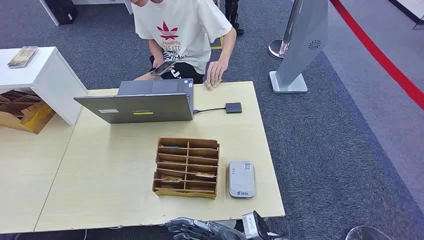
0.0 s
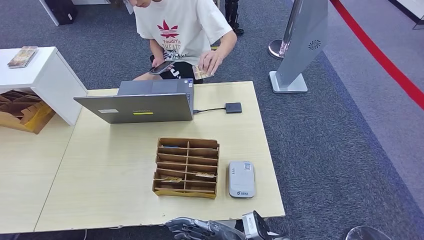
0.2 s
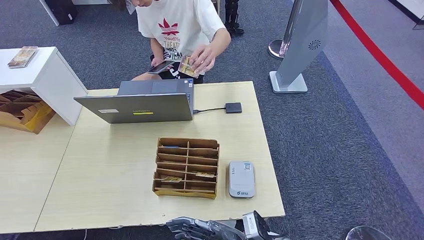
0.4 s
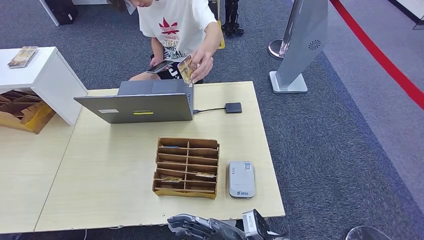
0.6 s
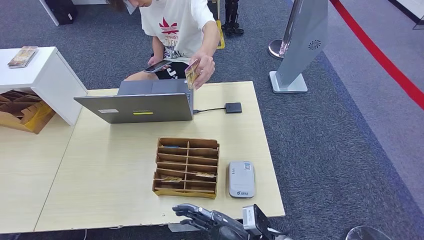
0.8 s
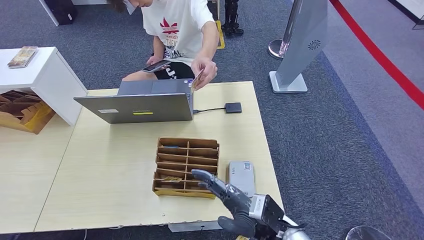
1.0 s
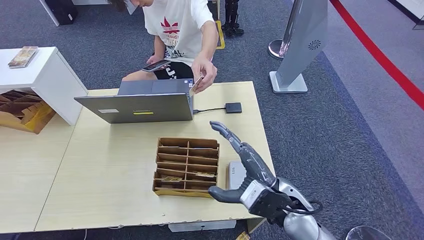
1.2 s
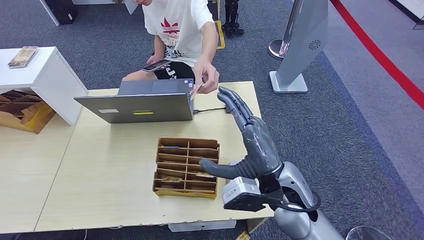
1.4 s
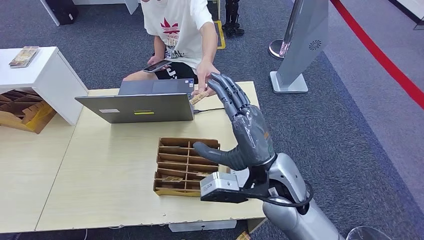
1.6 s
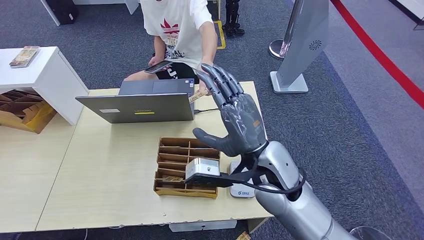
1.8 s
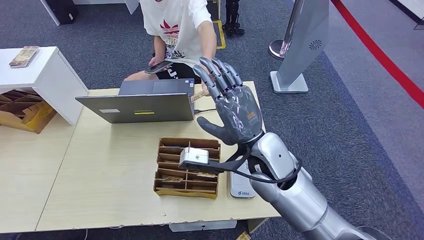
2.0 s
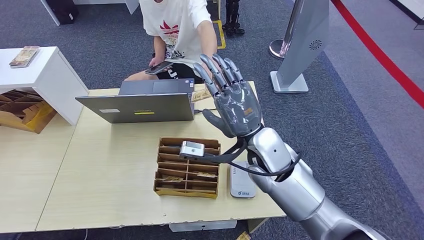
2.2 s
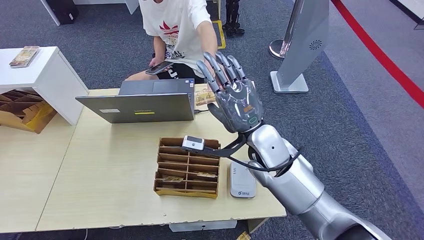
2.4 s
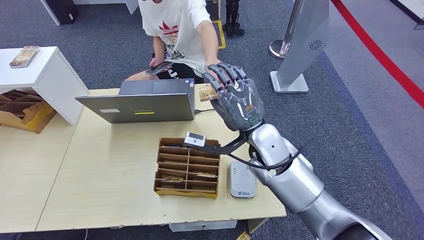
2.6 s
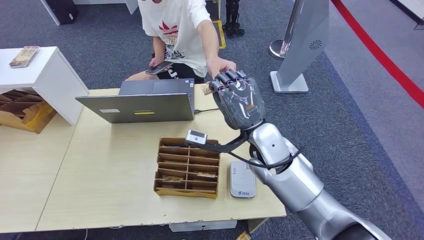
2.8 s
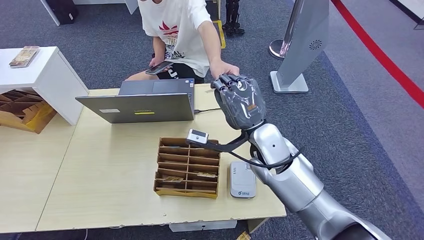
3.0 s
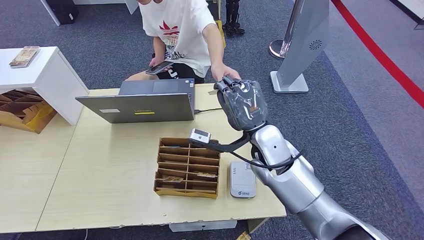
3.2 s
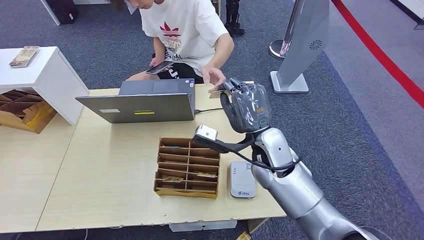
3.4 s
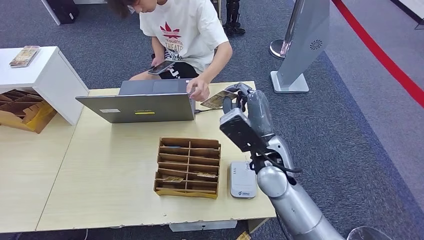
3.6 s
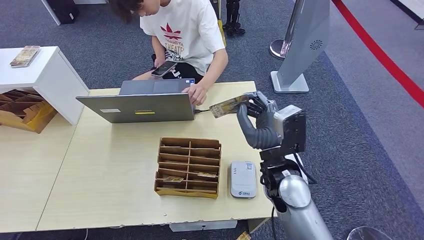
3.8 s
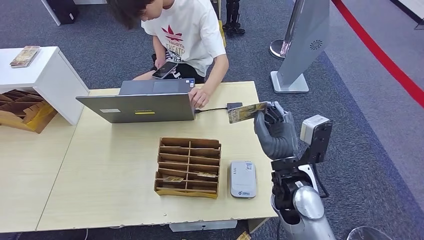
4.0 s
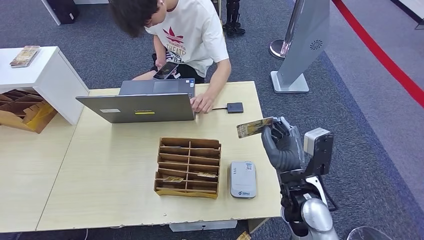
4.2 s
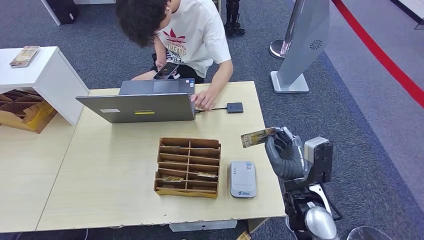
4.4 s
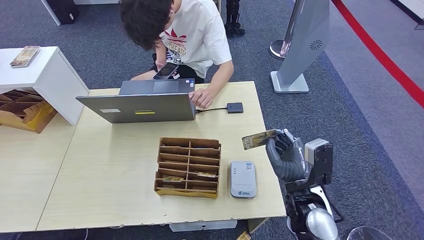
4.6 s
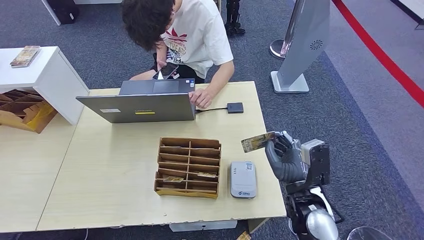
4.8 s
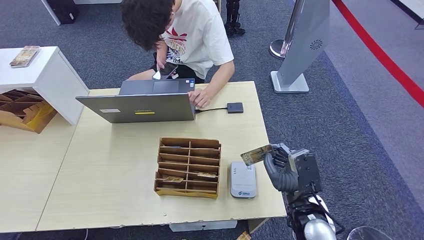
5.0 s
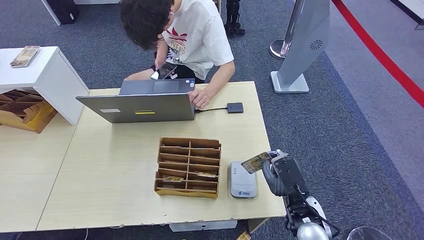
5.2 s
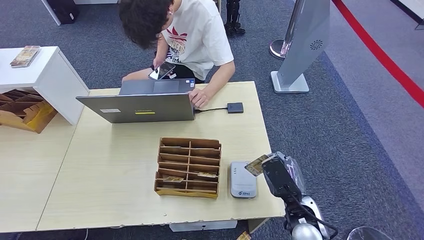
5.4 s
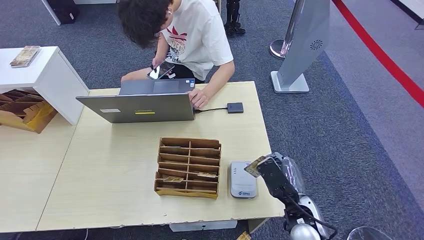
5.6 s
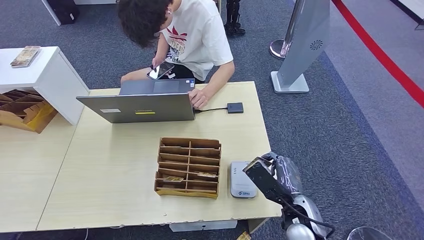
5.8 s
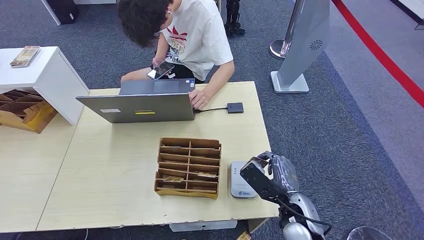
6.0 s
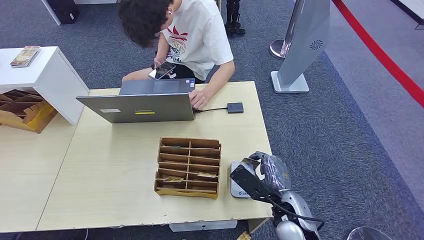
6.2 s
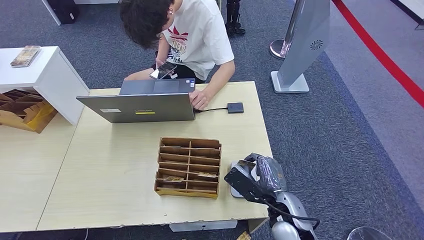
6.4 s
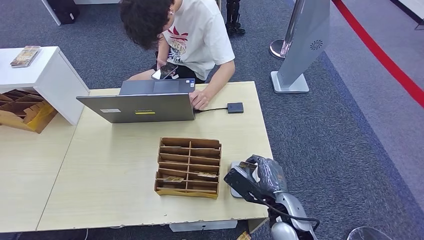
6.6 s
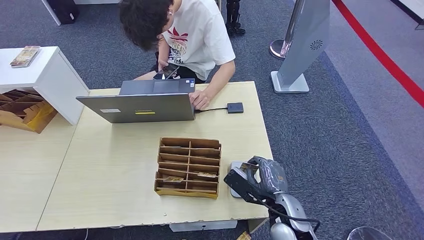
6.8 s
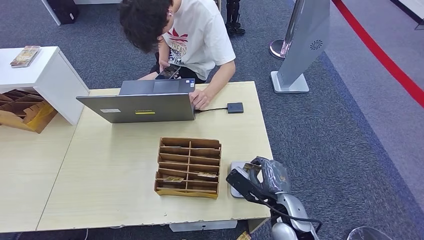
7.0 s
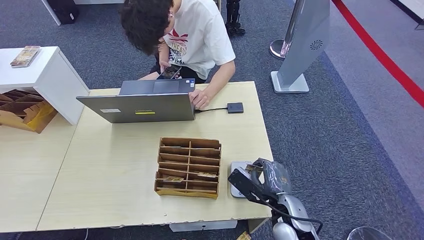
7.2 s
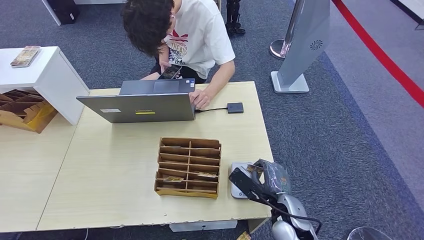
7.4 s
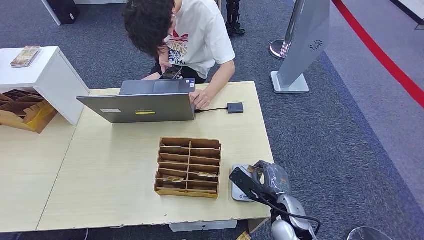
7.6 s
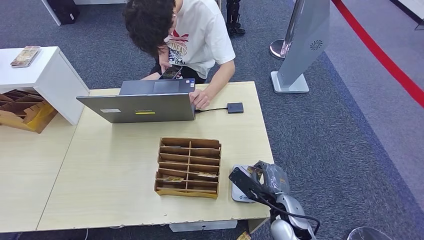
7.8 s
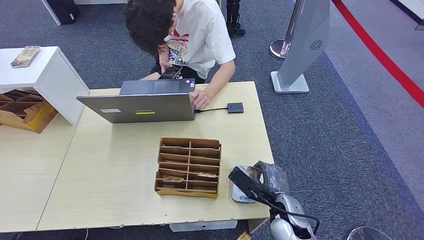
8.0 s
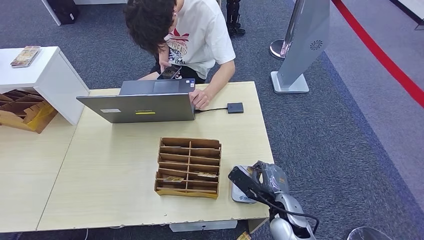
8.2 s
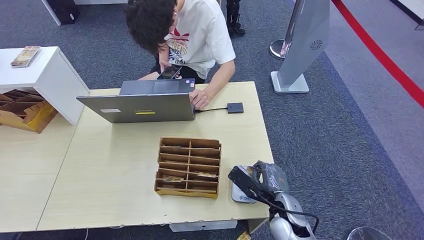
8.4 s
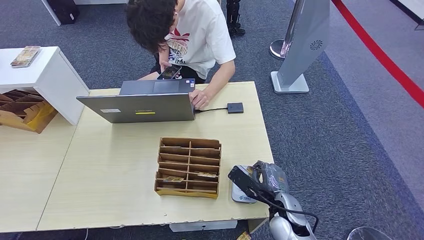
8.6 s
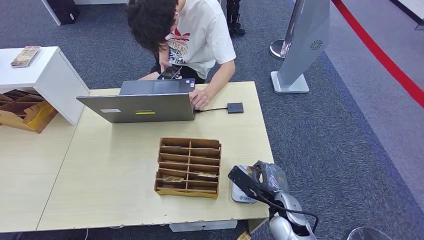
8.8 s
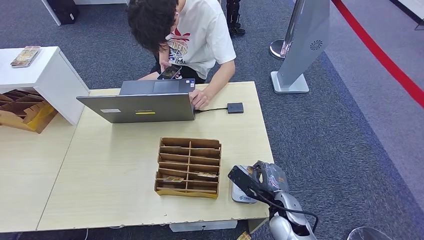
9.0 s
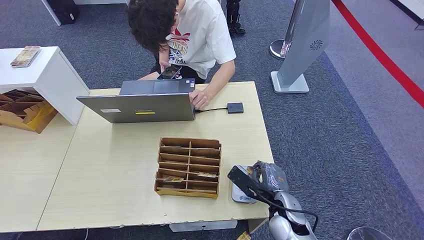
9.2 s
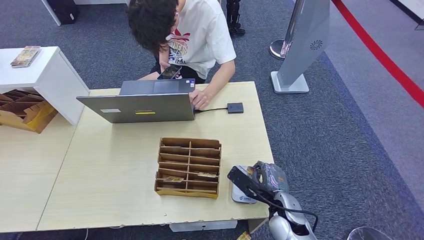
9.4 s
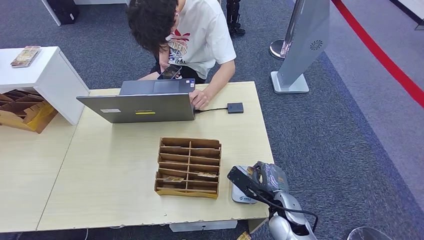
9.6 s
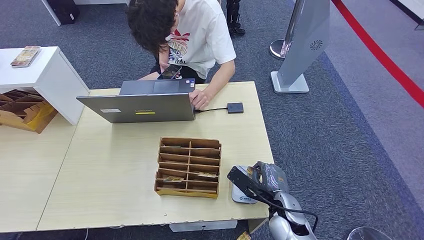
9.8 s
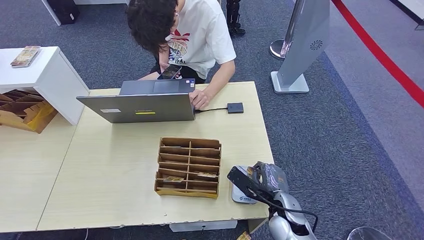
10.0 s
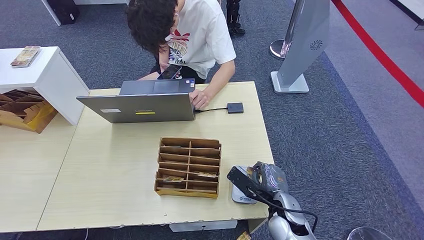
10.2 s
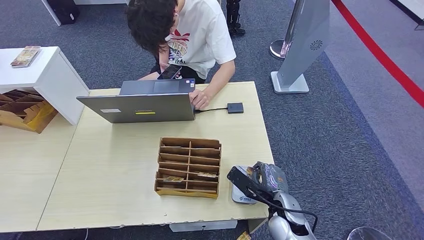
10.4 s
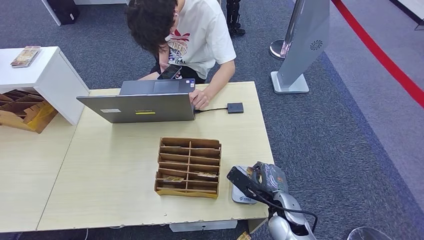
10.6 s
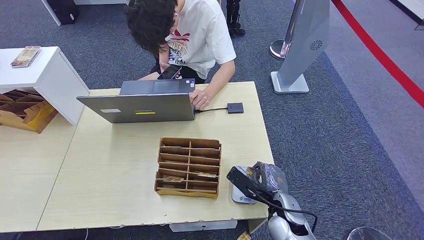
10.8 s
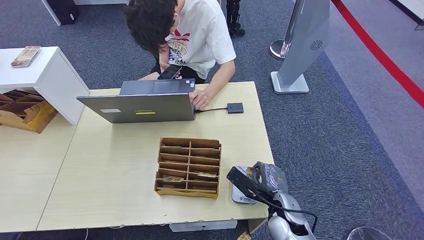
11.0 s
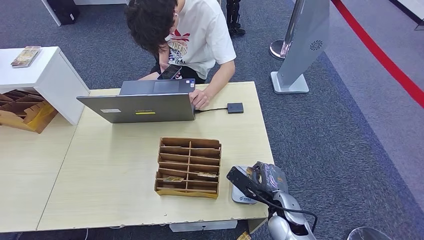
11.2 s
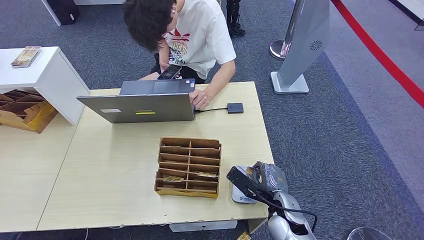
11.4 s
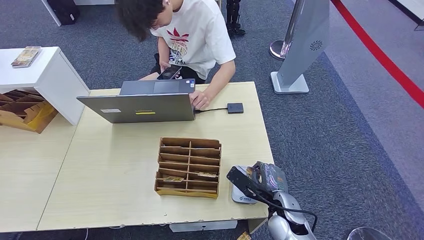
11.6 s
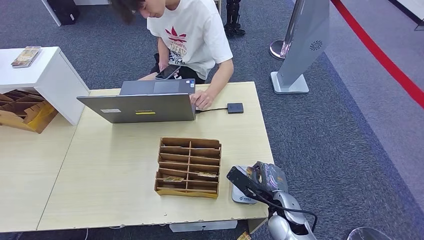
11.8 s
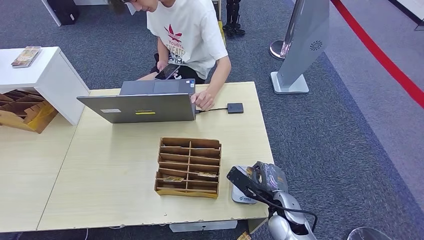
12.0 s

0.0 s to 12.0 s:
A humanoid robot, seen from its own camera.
Step, 0.0 to 3.2 s: Take the ID card from the person's hand.
Step, 3.6 to 8.0 s: Place the ID card on the card reader.
1.6 to 3.0 s: The right hand shifts approximately 10 cm forward.
3.0 to 4.4 s: The right hand goes some 15 cm backward, downward and to the right.
6.0 to 7.6 s: The hands move only a little.
7.6 to 10.4 s: Both hands stay about where they are.
10.4 to 12.0 s: Neither hand changes place.

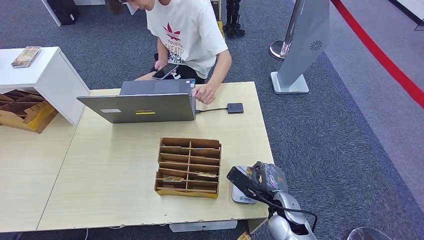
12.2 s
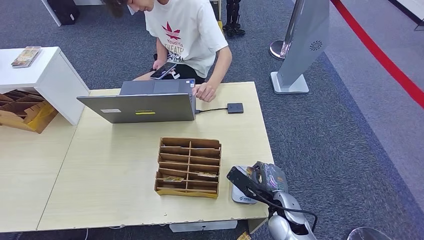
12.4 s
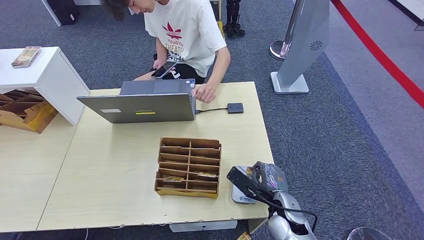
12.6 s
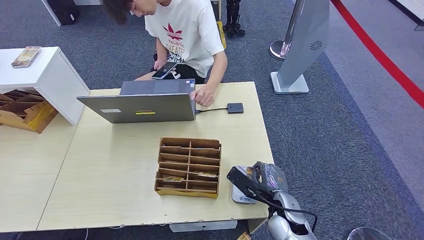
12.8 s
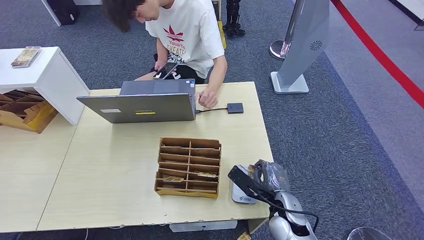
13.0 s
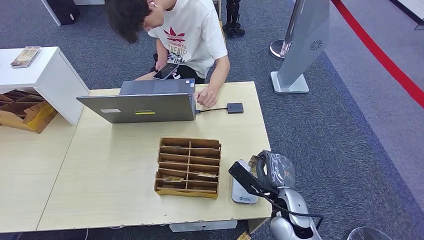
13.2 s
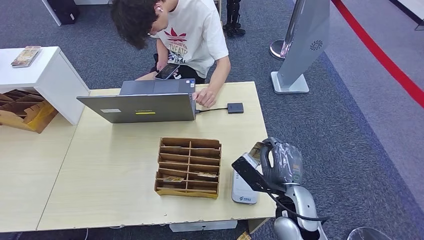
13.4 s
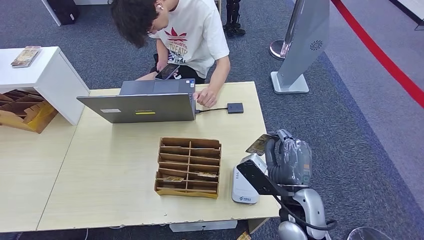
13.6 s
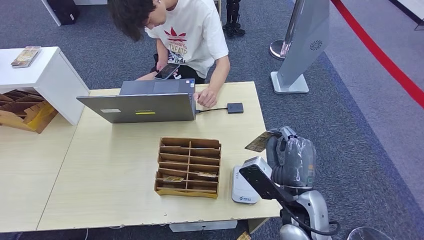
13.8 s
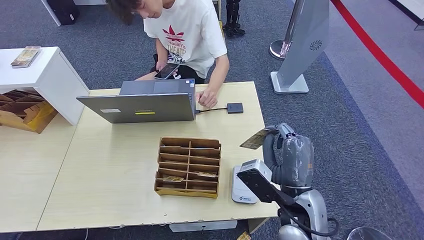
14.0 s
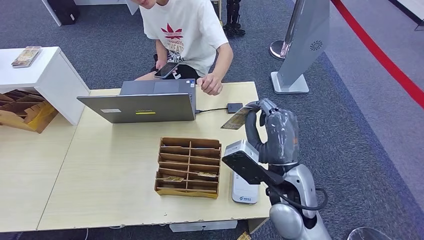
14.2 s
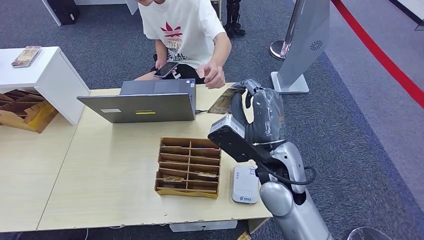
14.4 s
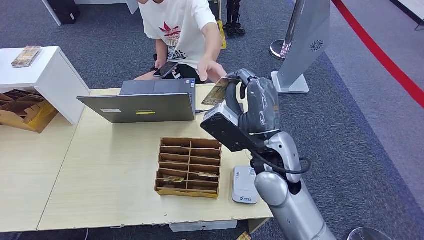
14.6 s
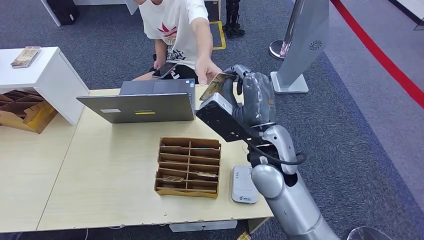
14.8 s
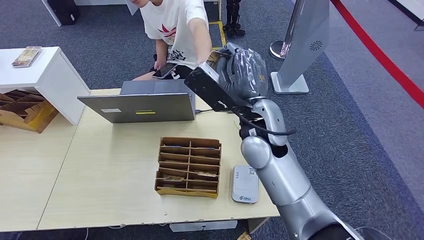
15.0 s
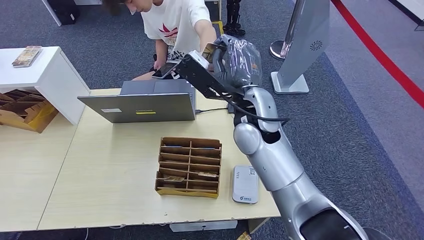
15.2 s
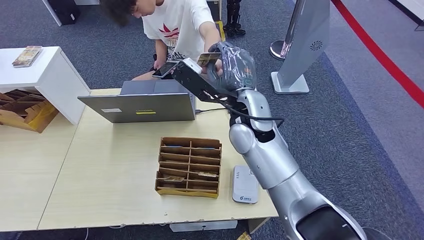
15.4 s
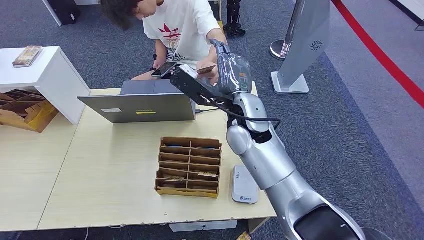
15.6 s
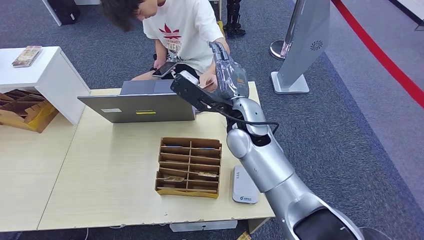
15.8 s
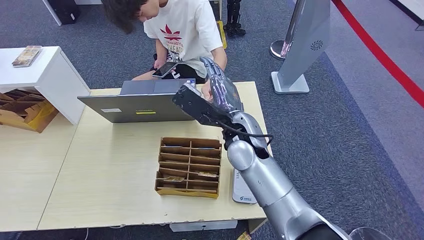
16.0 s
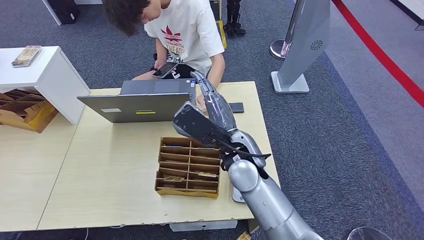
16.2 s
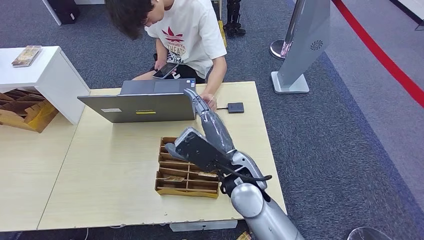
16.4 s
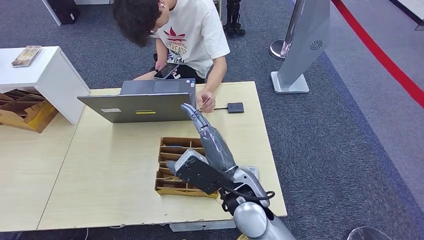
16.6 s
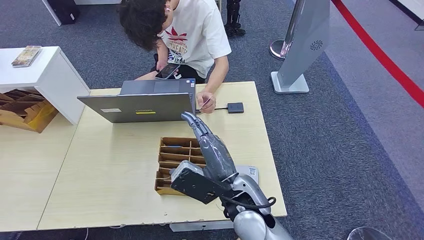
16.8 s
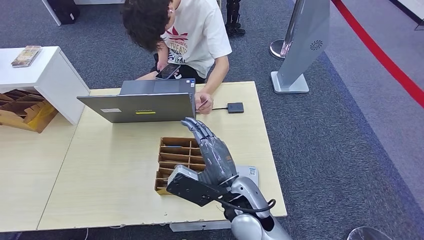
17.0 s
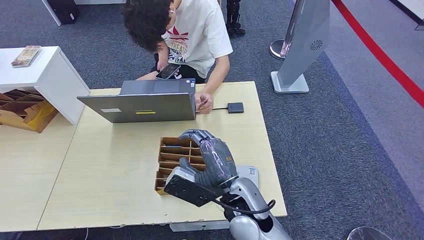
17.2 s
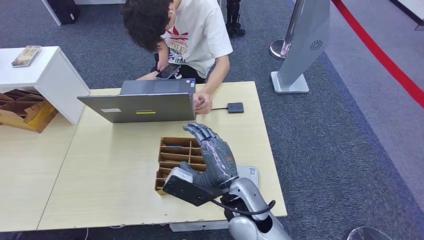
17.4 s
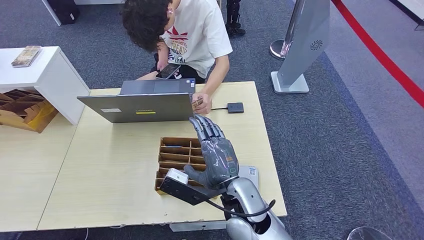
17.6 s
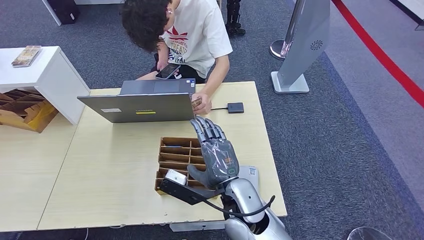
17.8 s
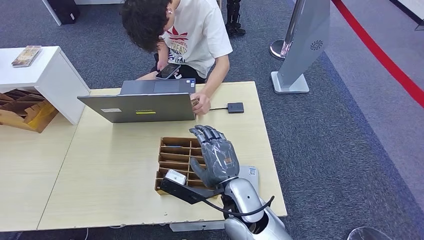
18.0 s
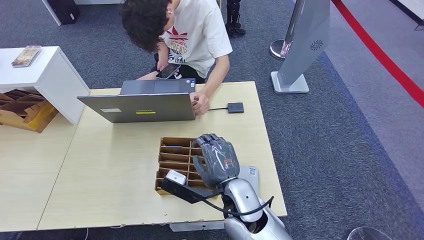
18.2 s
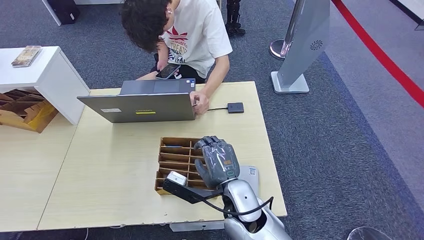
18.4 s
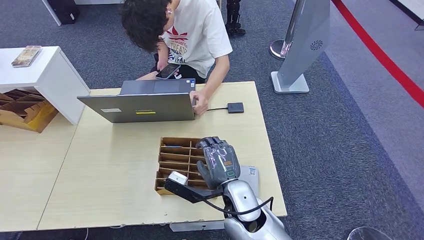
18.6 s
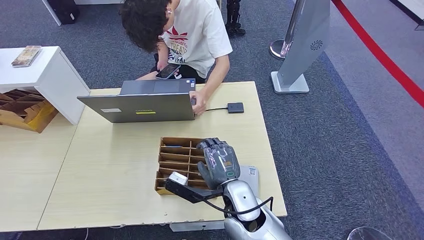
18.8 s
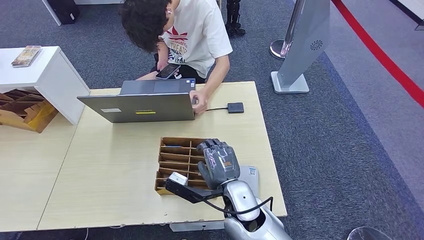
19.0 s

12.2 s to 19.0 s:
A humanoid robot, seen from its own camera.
Step, 12.2 to 17.2 s: Hand the ID card to the person.
12.2 to 13.6 s: The right hand shifts about 10 cm upward.
13.6 to 15.0 s: The right hand is displaced upward, forward and to the left by roughly 20 cm.
15.0 to 16.2 s: The right hand heads downward, covering some 5 cm.
16.2 to 17.6 s: The right hand travels backward and downward by about 10 cm.
17.6 to 19.0 s: The hands stay close to where they were, moving slightly.
